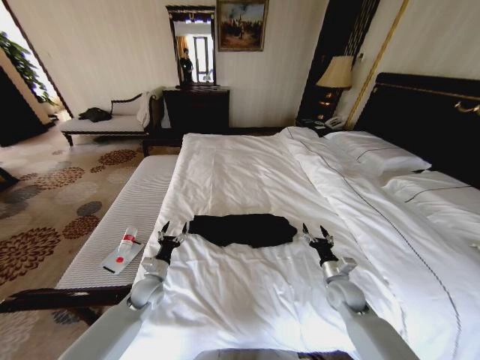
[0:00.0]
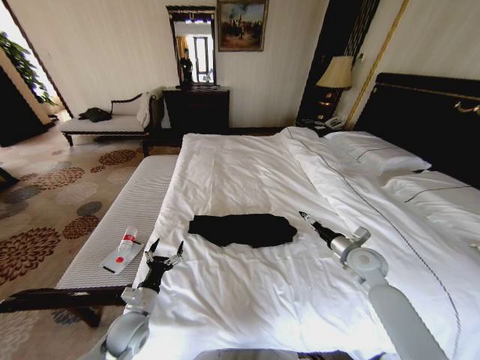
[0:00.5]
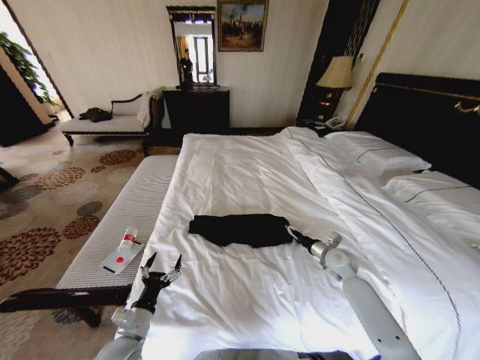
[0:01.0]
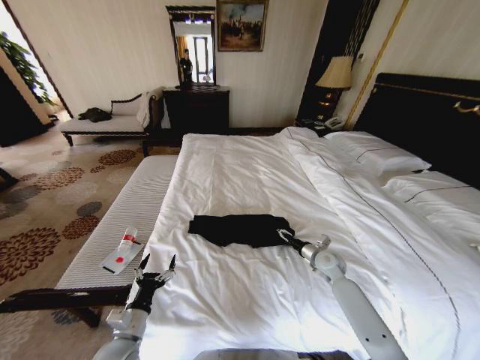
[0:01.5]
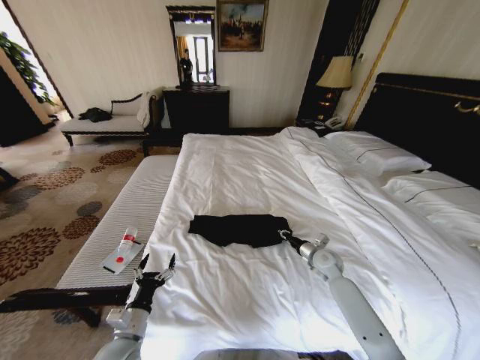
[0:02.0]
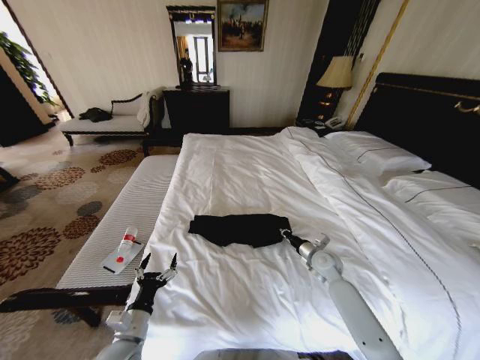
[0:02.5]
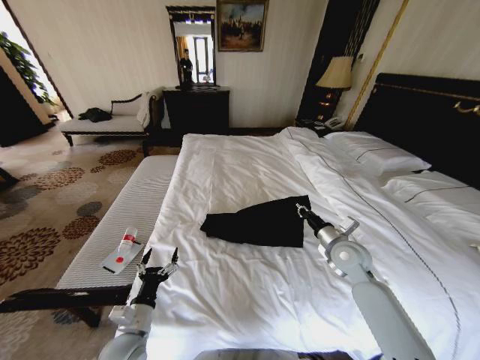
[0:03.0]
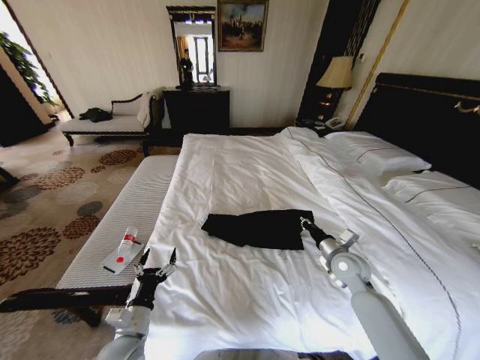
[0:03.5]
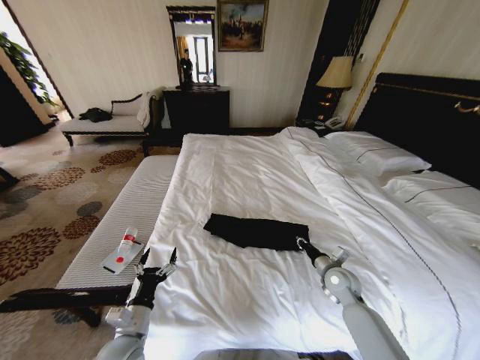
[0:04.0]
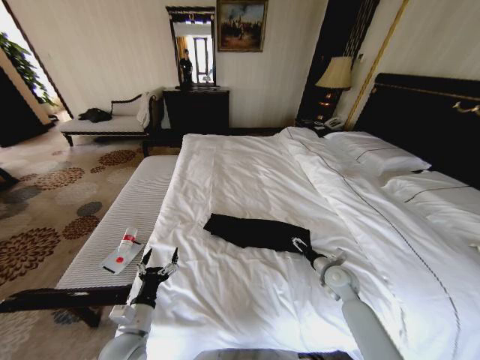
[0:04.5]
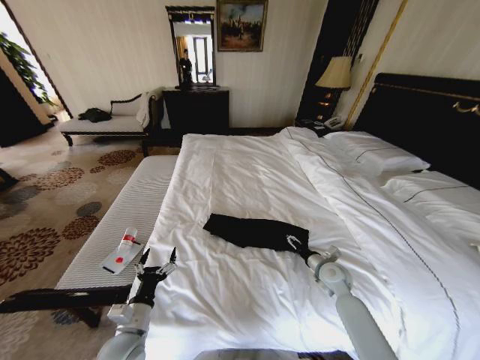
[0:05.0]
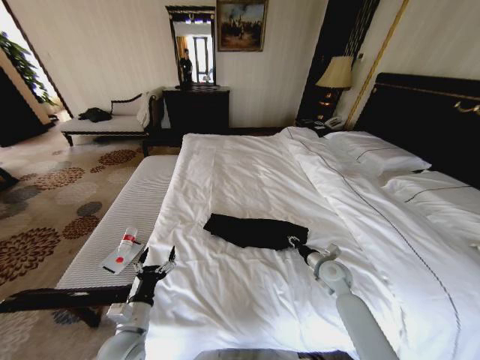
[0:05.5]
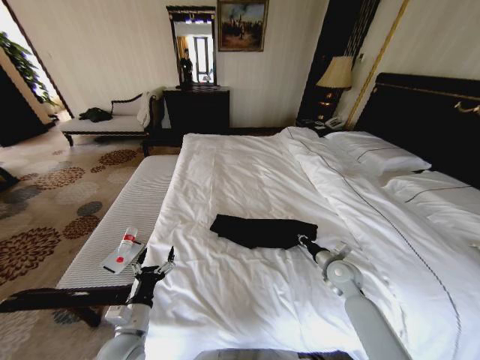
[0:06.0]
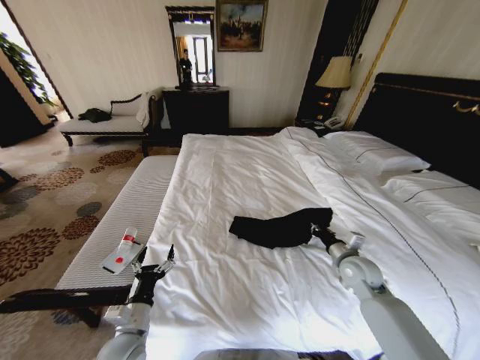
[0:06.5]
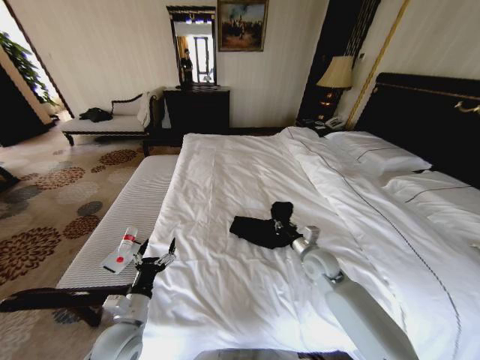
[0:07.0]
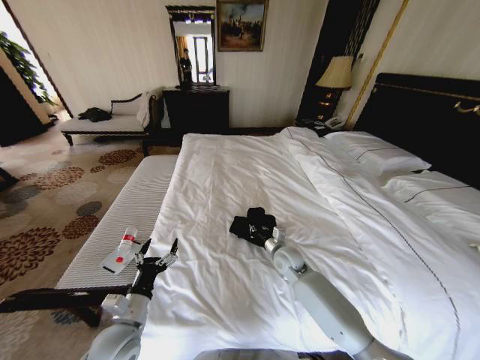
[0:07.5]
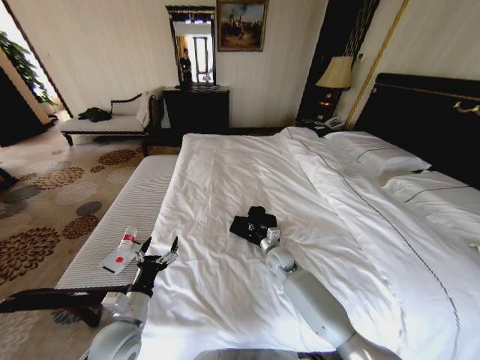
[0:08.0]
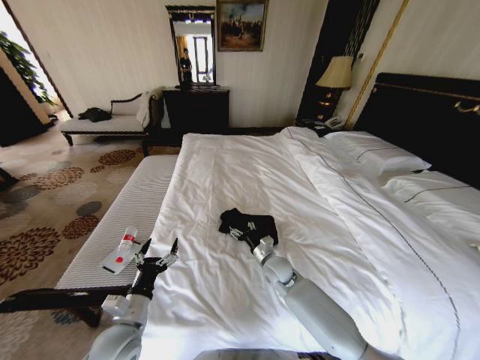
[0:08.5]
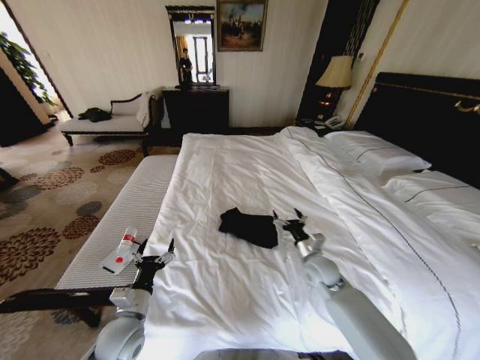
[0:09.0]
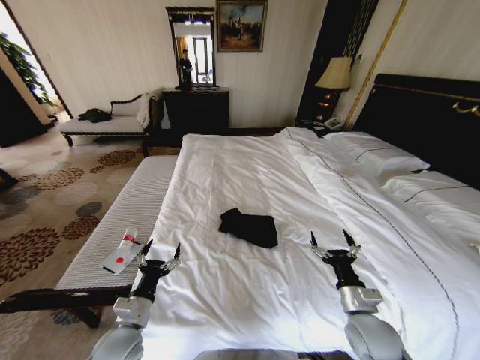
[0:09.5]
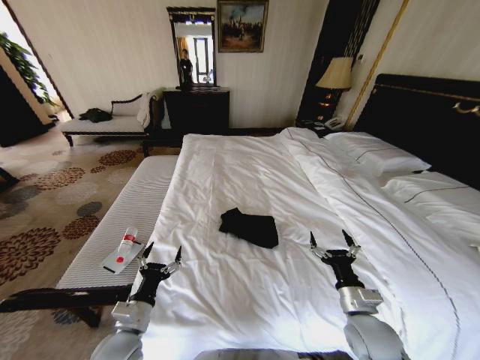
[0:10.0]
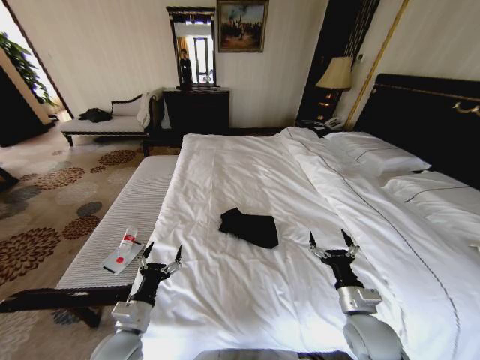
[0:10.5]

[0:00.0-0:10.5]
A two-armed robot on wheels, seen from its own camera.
Task of the whole recording: Fold the clothes on the bed.
0:00.0 to 0:02.0: The right gripper shifts approximately 10 cm forward, travels upward and back again, some 10 cm each way, and closes up, while the left gripper goes about 15 cm backward.
0:02.0 to 0:04.0: The right gripper heads backward, covering roughly 5 cm, and goes upward and returns, about 10 cm each way.
0:04.0 to 0:06.5: The right gripper travels upward by some 5 cm, and opens, then closes once more.
0:06.5 to 0:08.5: The right gripper travels to the left by approximately 20 cm, and opens up.
0:08.5 to 0:10.5: The right gripper shifts some 25 cm backward and to the right.
